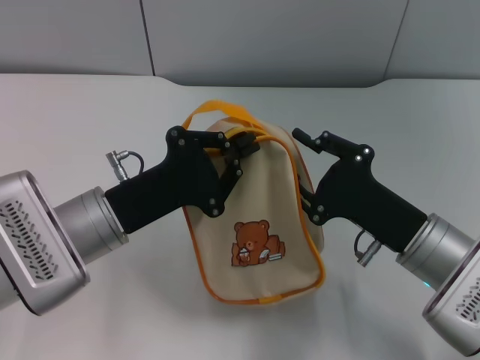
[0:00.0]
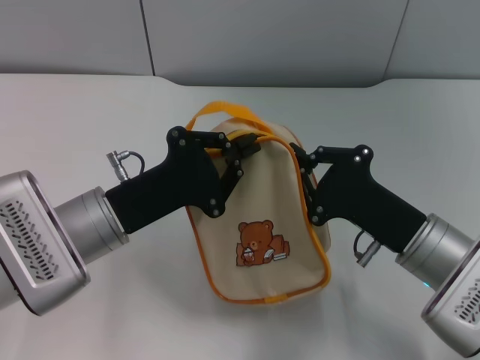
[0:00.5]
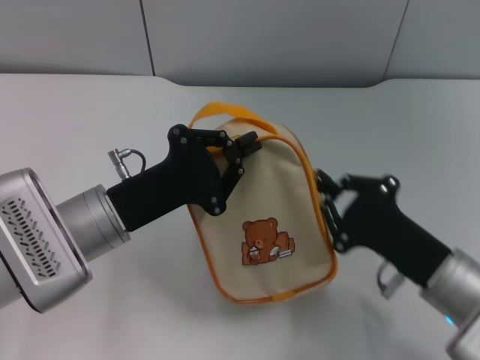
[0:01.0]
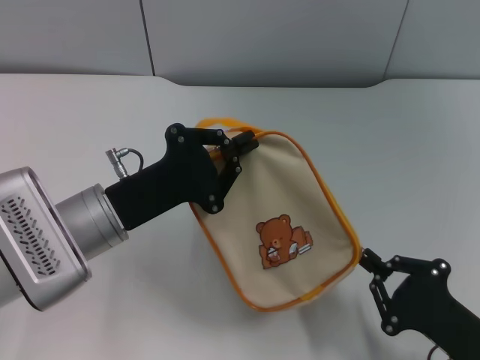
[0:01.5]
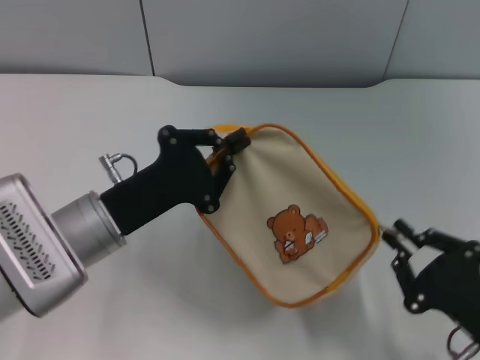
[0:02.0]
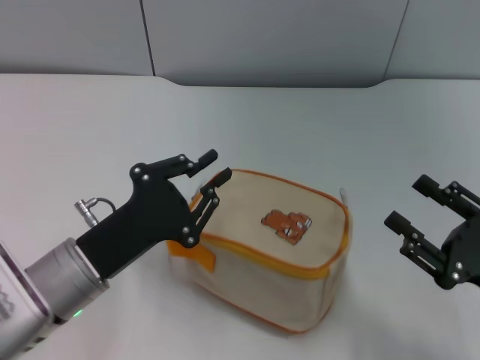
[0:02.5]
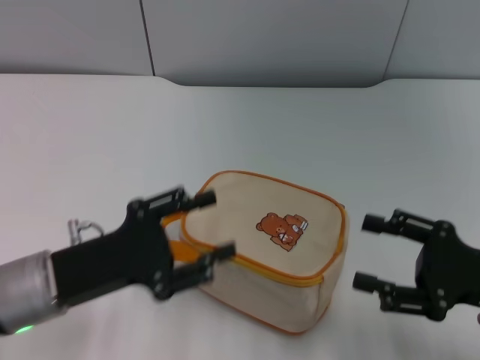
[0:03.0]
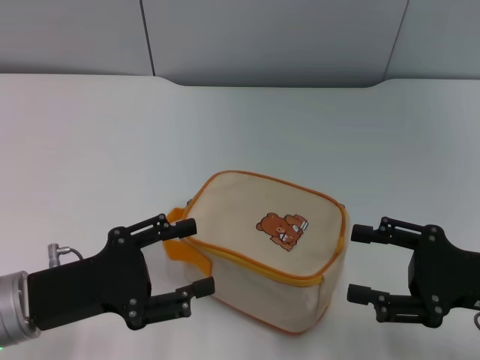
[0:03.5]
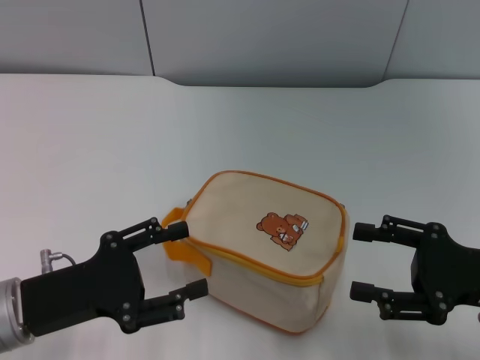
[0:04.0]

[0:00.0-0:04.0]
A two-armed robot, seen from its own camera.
Step, 0:00.0 to 0:02.0: Unzip the zipper of bag with right gripper.
0:00.0 to 0:02.0: The right gripper heads backward and to the right, covering some 10 cm, and closes up.
0:02.0 to 0:04.0: The right gripper travels forward and upward by about 10 cm, and opens its fingers, while the left gripper is displaced to the left and backward by about 10 cm, and opens its fingers.

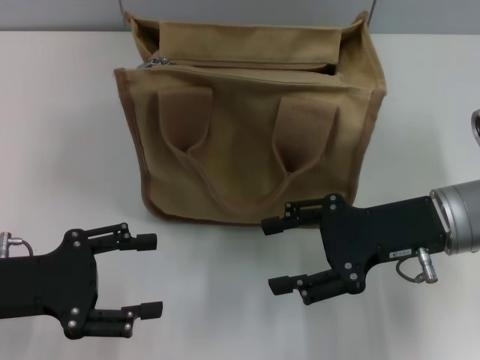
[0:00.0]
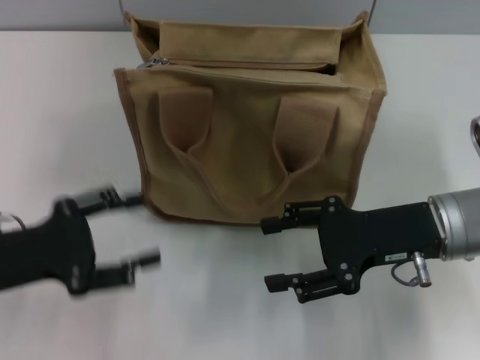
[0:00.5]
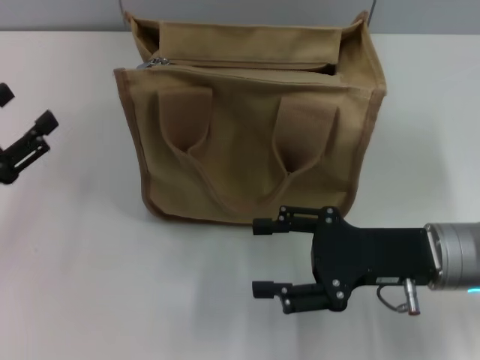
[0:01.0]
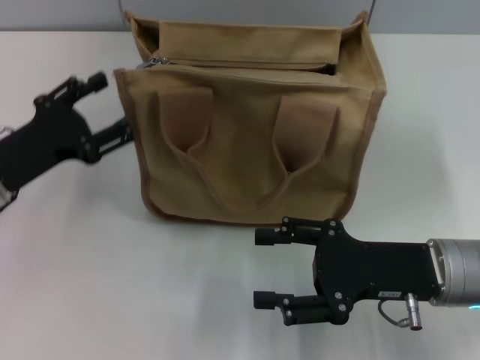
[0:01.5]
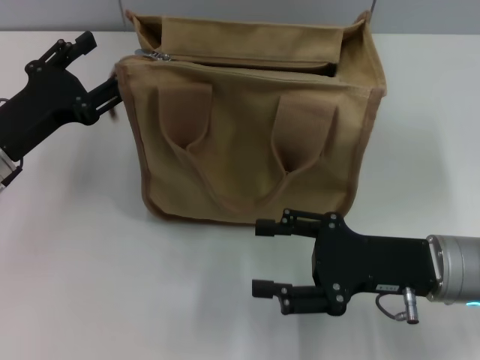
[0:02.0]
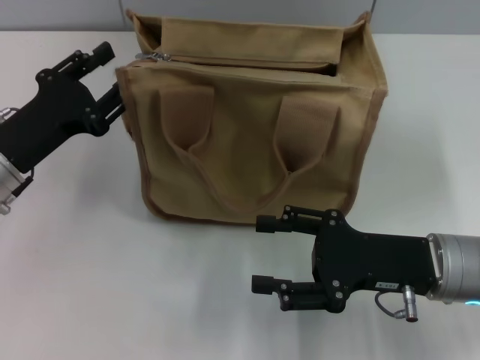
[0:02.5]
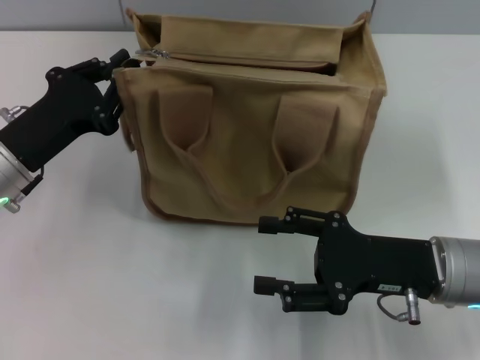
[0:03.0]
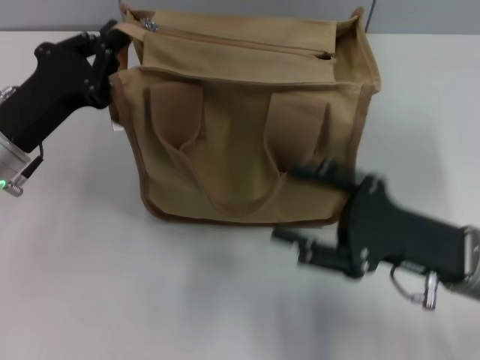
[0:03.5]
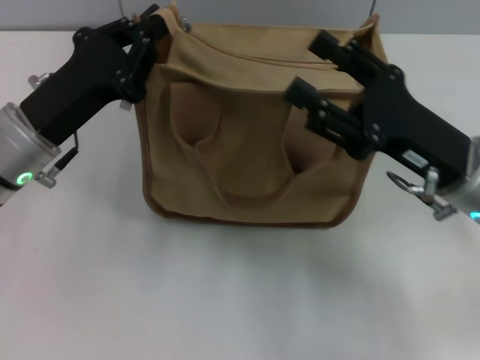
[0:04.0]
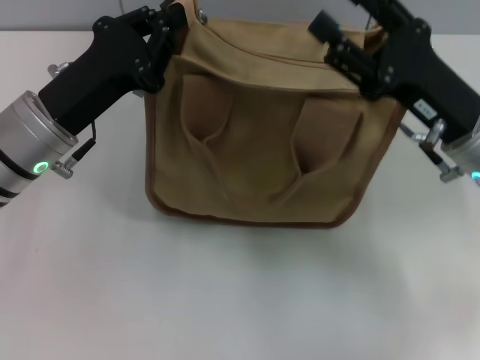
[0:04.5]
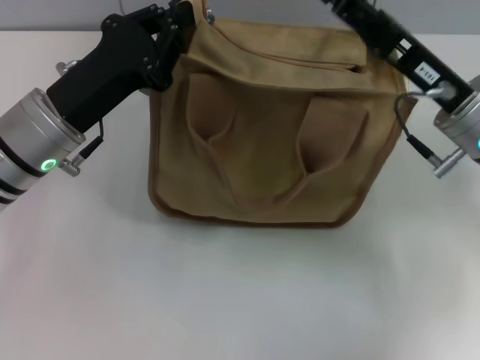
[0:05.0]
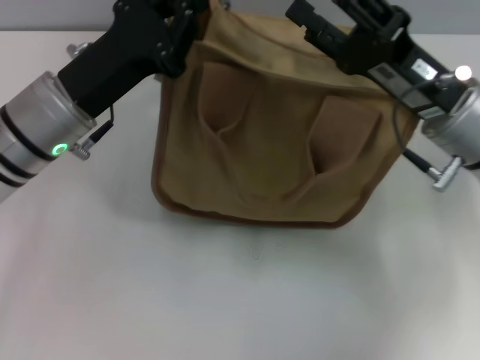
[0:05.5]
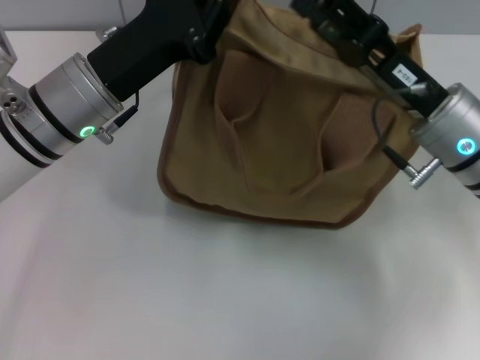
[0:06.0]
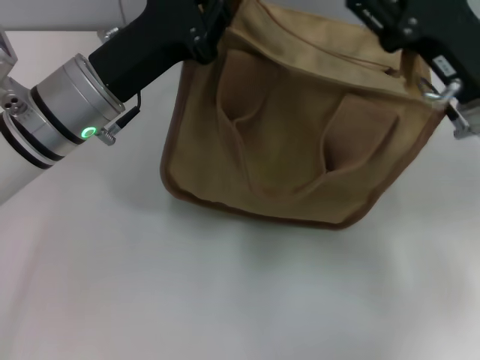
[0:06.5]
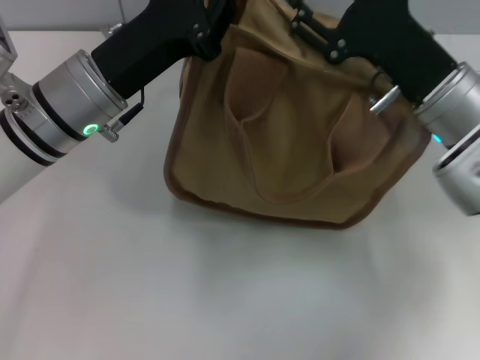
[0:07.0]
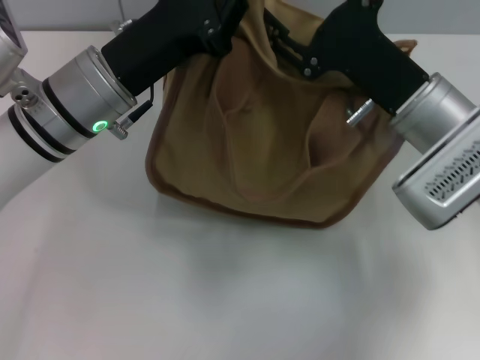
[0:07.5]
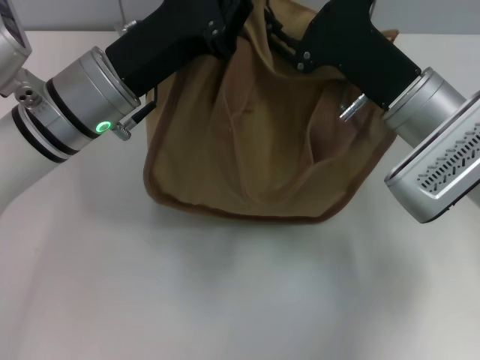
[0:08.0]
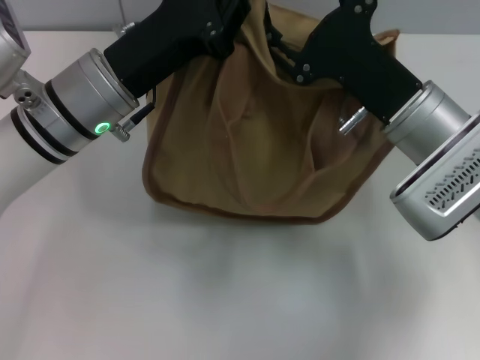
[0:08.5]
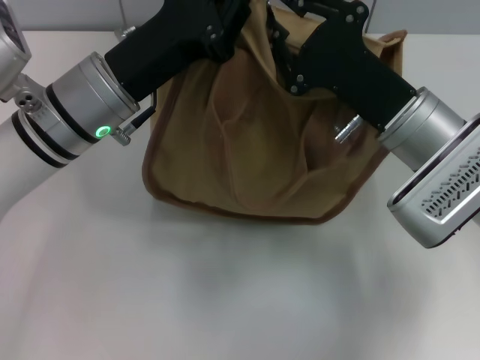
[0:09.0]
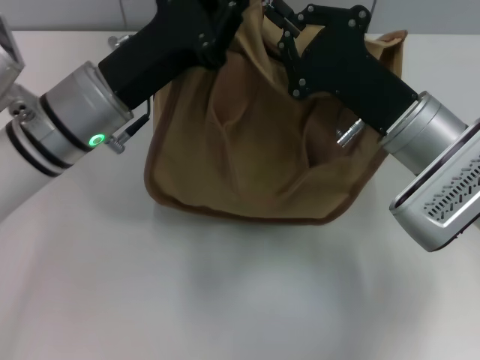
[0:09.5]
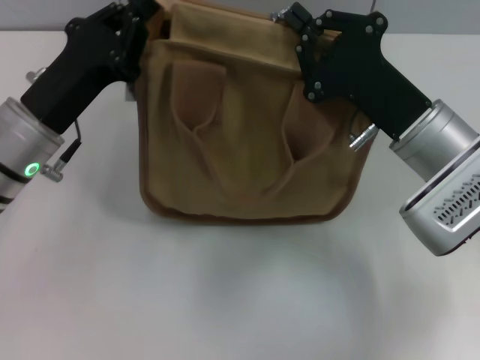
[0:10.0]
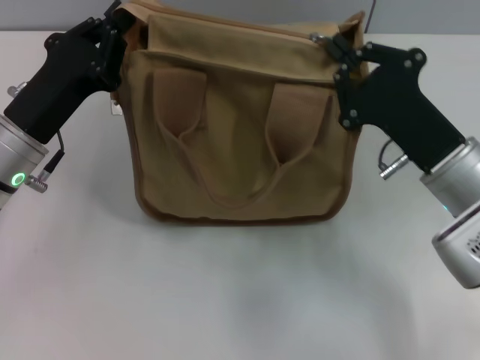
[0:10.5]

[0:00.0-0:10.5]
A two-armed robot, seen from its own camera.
0:00.0 to 0:02.0: The right gripper shifts by approximately 5 cm. The left gripper heads forward, covering approximately 10 cm.
0:02.0 to 0:04.0: The right gripper ends up some 5 cm from where it was. The left gripper shifts by approximately 5 cm, and closes its fingers.
0:04.0 to 0:06.5: The right gripper ends up approximately 5 cm from where it was. Meanwhile the left gripper is displaced to the right by about 5 cm.
0:06.5 to 0:08.5: The right gripper shifts approximately 5 cm to the left.
0:08.5 to 0:10.5: The right gripper shifts by about 5 cm, and closes, while the left gripper heads to the left, covering some 10 cm.

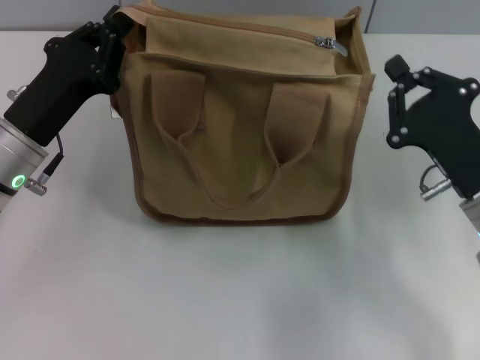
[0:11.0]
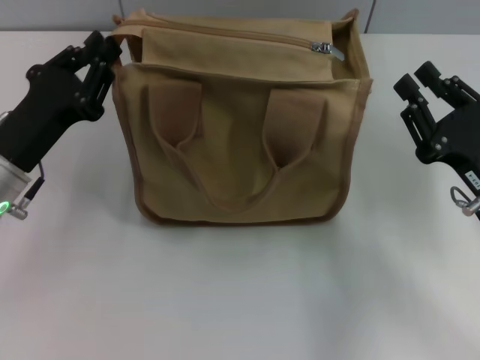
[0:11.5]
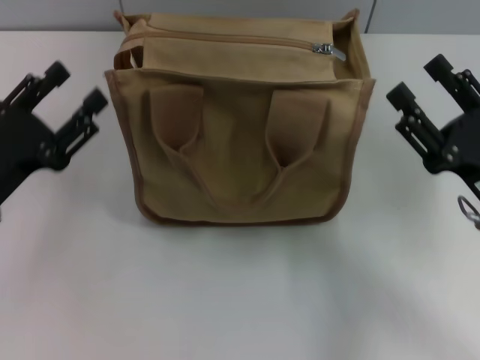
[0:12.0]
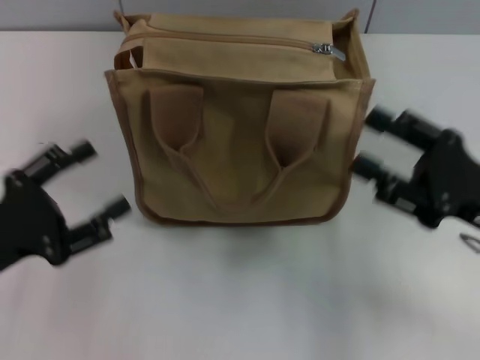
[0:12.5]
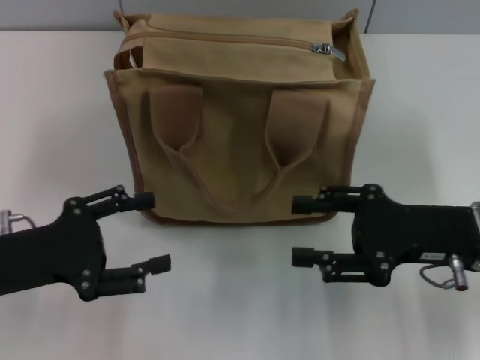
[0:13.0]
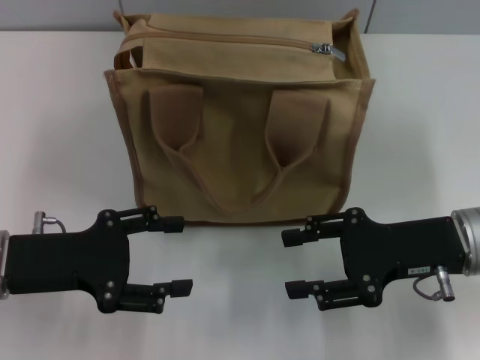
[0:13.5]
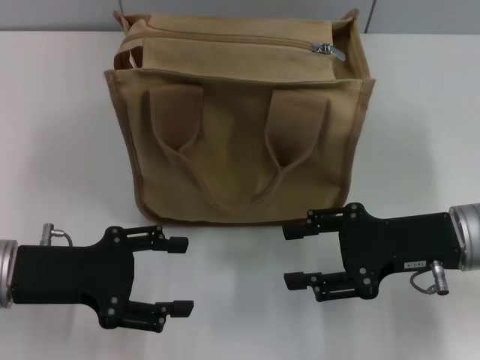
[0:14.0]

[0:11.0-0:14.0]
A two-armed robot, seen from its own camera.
0:11.0 to 0:12.5: The left gripper moves backward and to the left, some 10 cm, and opens its fingers; the right gripper opens.
0:12.5 to 0:14.0: The left gripper changes place by roughly 5 cm.
